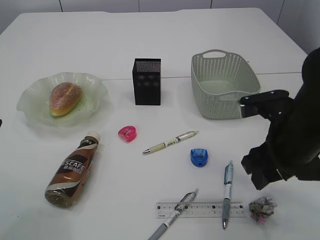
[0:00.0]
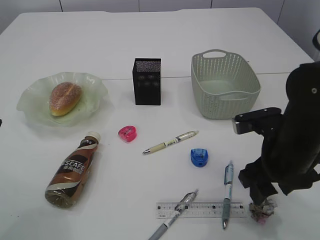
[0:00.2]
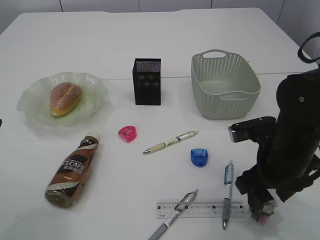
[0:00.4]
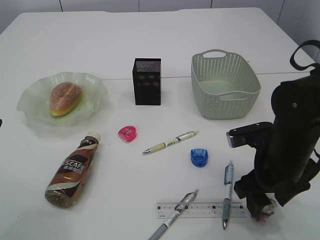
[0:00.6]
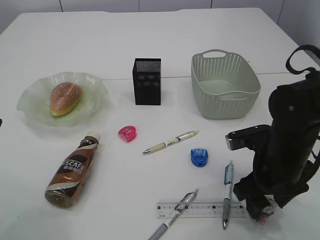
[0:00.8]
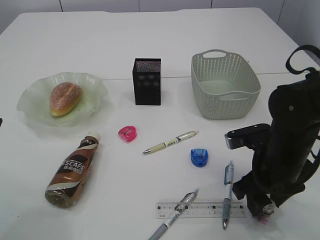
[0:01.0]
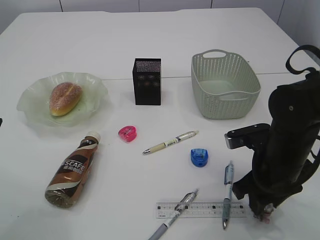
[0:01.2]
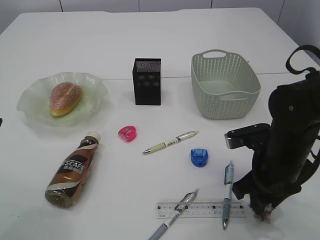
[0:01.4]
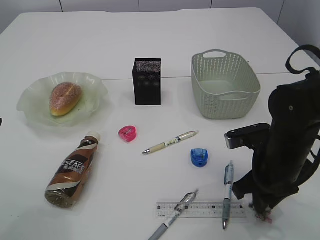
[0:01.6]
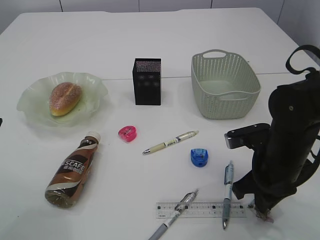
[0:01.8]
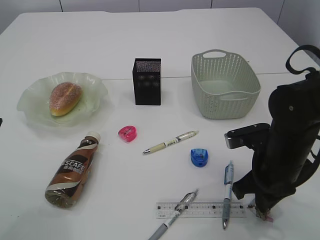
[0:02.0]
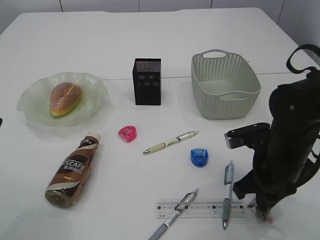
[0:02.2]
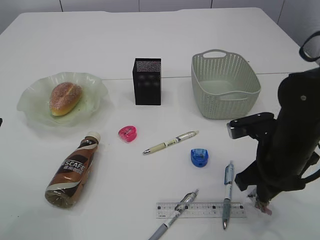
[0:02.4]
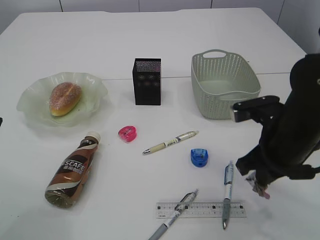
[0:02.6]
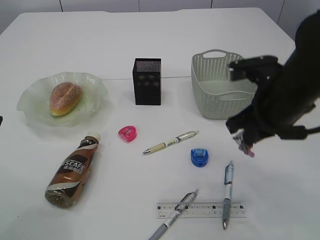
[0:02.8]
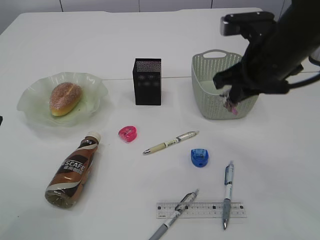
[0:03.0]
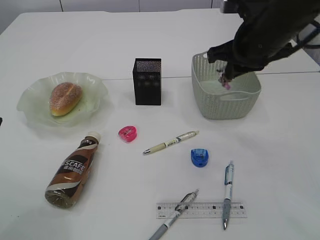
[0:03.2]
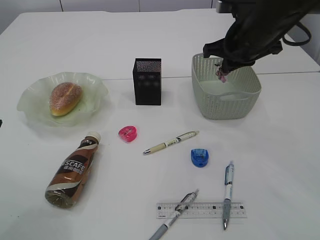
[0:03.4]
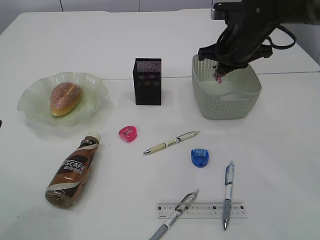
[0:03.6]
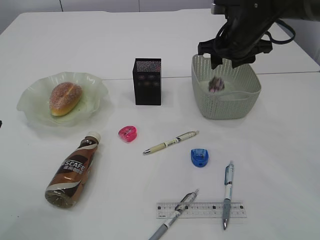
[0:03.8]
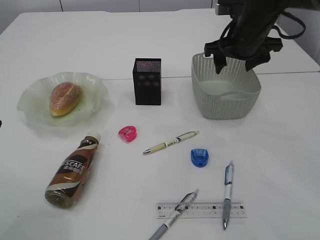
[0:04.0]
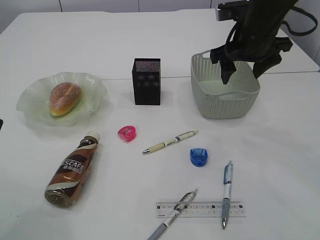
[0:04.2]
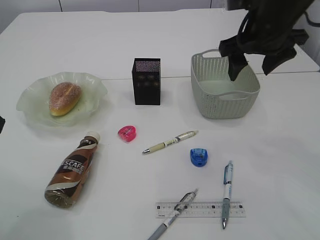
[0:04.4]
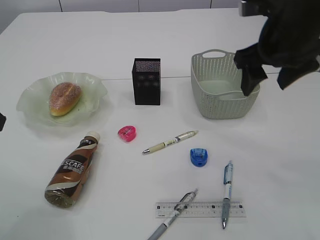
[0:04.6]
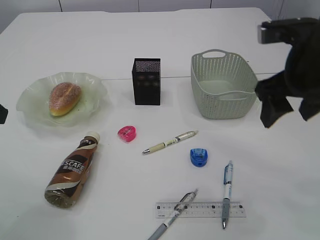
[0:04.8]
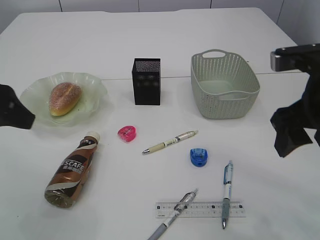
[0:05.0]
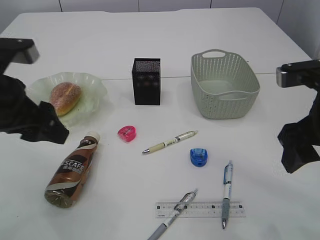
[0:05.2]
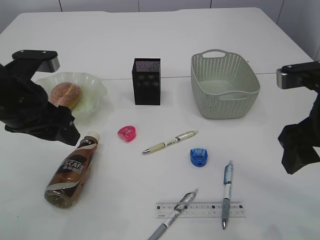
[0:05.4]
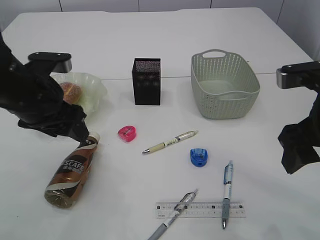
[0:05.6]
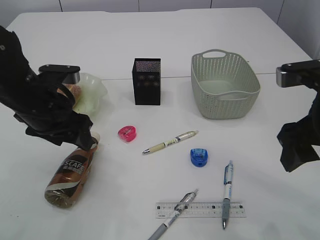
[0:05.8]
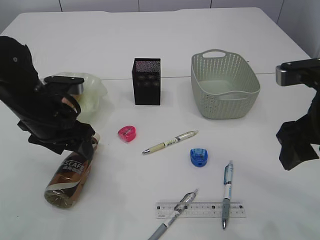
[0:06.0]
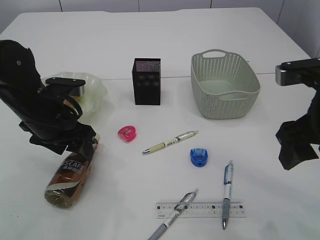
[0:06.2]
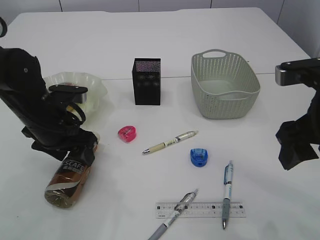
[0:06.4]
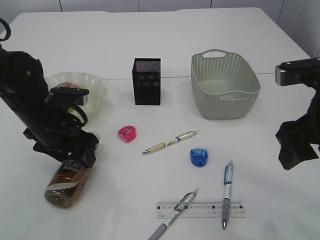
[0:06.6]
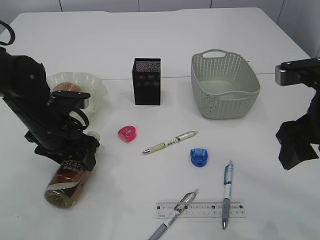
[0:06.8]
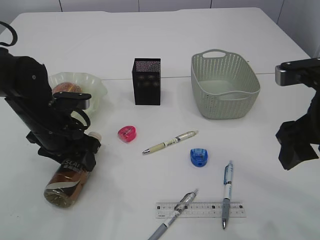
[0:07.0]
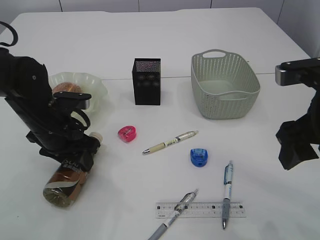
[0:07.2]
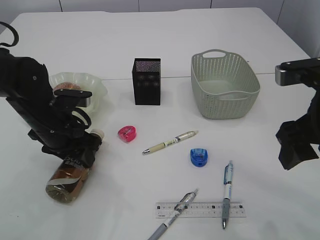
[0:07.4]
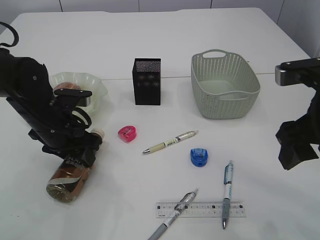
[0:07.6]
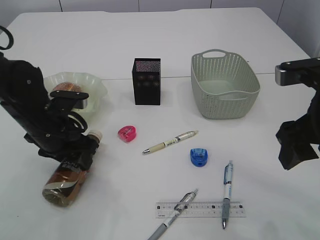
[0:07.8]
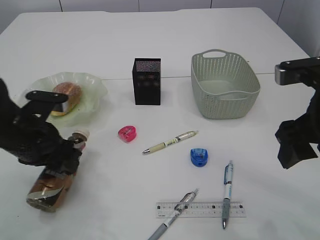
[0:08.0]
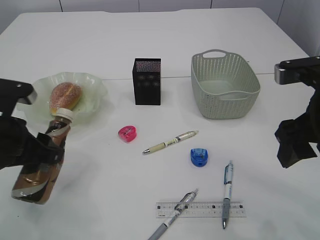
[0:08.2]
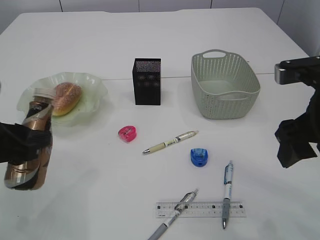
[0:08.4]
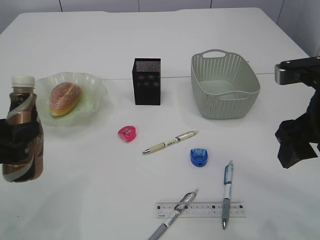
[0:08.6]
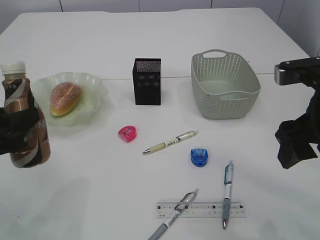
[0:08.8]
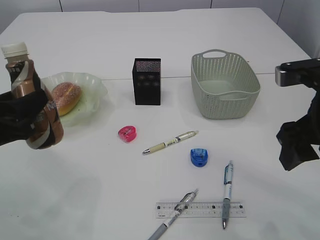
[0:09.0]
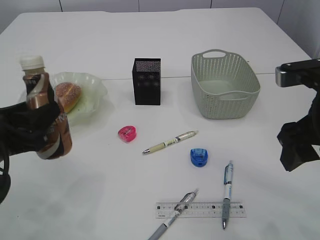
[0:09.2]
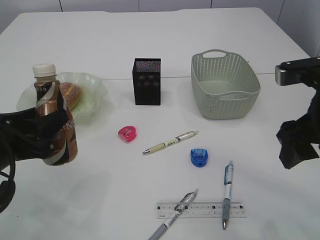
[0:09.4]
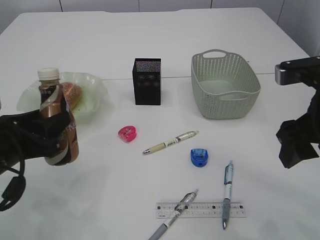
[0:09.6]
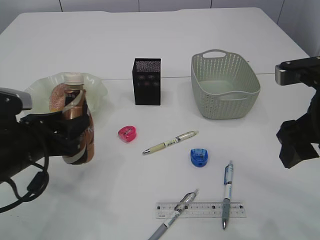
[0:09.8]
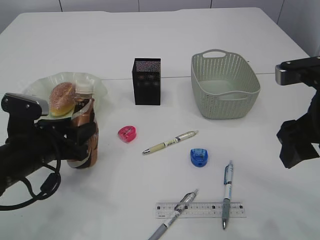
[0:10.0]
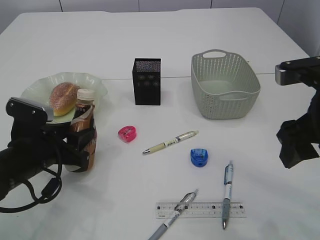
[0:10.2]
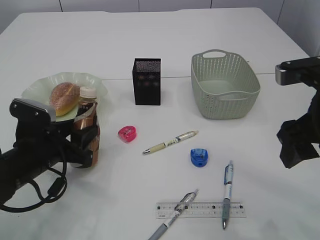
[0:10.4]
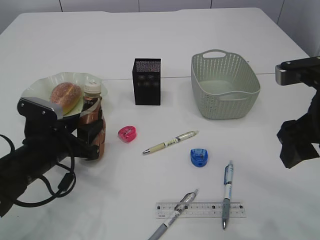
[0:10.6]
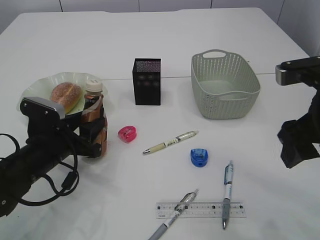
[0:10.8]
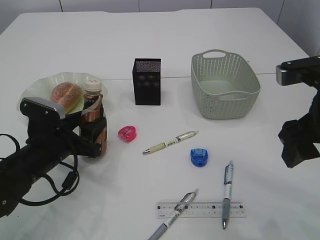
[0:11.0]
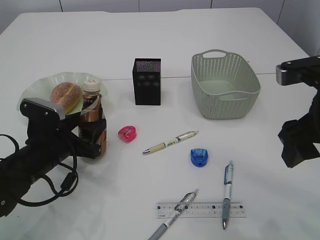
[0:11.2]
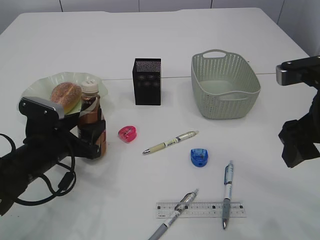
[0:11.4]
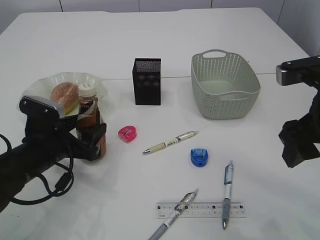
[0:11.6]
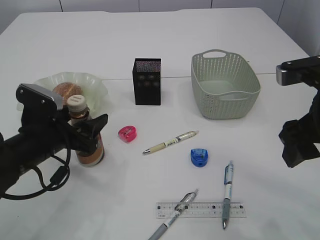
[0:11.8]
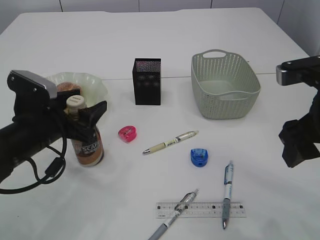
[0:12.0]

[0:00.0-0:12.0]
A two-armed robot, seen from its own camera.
Step, 0:00.0 to 0:02.6: Pick up the waste paper.
Step, 0:02.8 to 0:03.8: Place the waste paper in the basket.
Step, 0:04.0 to 0:08.0: Pick up the bottle with the left arm.
0:00.0 to 0:01.6: The right gripper is displaced downward by some 5 cm, and closes.
0:01.6 to 0:03.0: The right gripper travels upward and forward by roughly 15 cm.
0:03.0 to 0:04.4: The right gripper moves forward, some 5 cm, and opens its fingers.
0:04.4 to 0:06.0: The left gripper heads downward, to the right and forward, covering about 20 cm; the right gripper shifts some 15 cm backward.
0:06.0 to 0:07.6: The left gripper closes.
0:07.6 to 0:09.0: The left gripper travels backward, upward and to the left by some 15 cm.
0:09.0 to 0:10.4: The left gripper travels downward and forward by roughly 10 cm.
0:10.4 to 0:12.0: The left gripper opens.

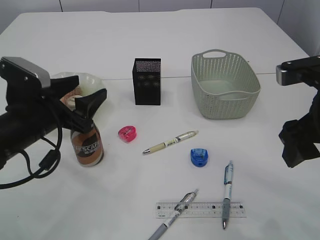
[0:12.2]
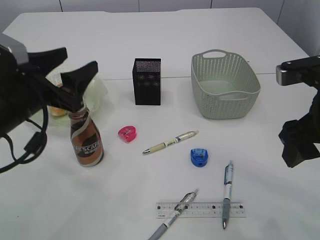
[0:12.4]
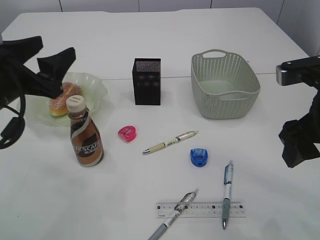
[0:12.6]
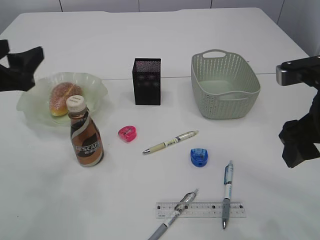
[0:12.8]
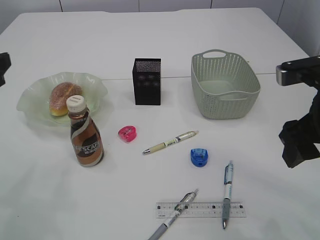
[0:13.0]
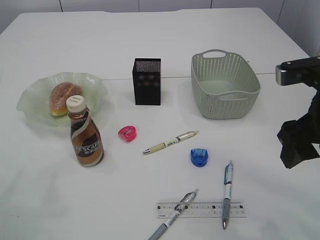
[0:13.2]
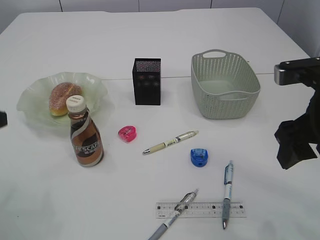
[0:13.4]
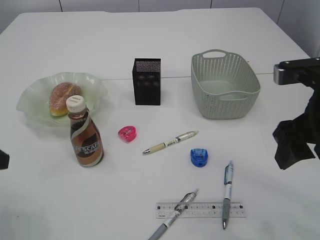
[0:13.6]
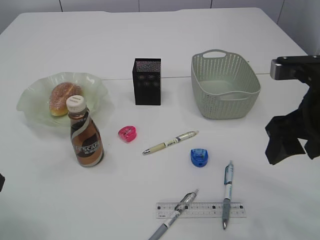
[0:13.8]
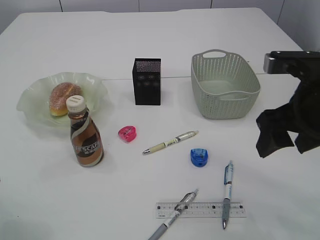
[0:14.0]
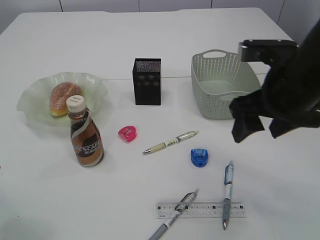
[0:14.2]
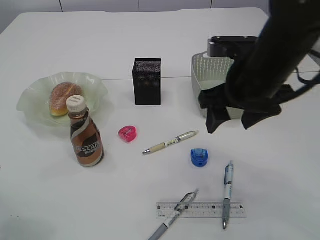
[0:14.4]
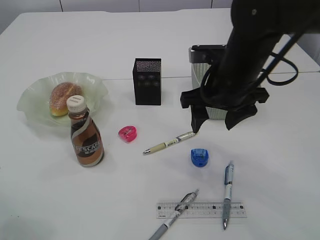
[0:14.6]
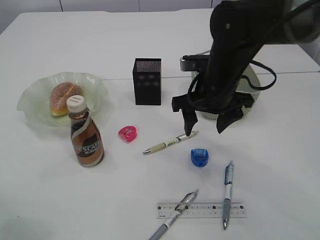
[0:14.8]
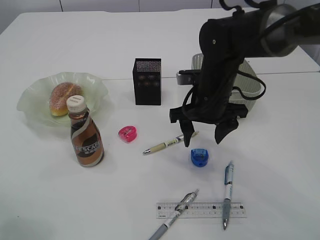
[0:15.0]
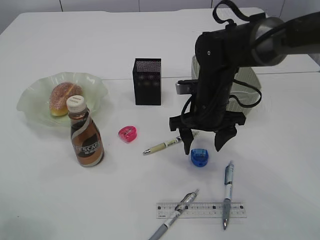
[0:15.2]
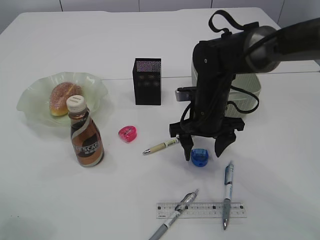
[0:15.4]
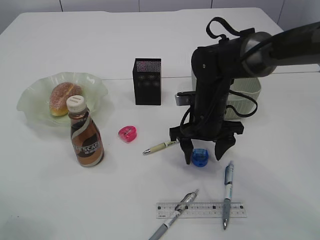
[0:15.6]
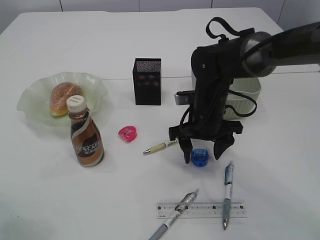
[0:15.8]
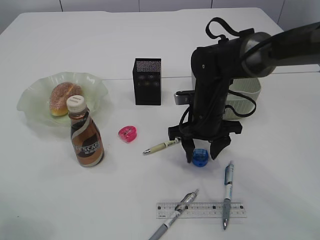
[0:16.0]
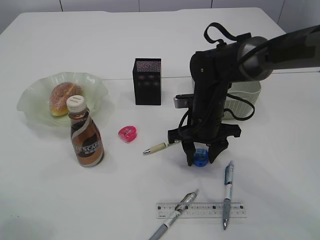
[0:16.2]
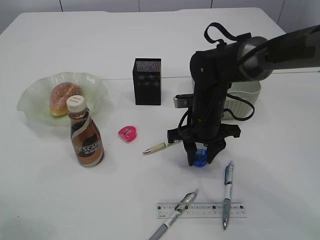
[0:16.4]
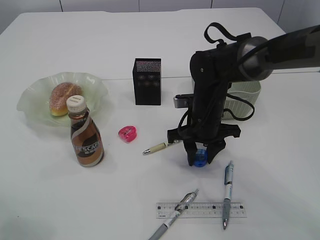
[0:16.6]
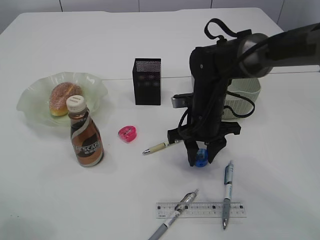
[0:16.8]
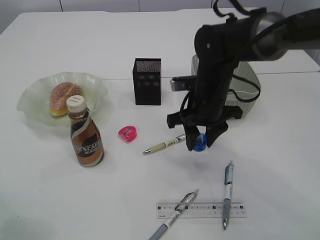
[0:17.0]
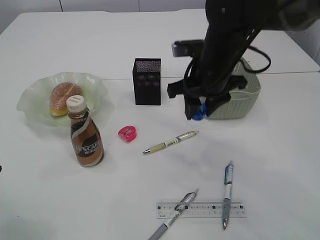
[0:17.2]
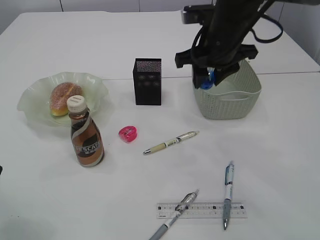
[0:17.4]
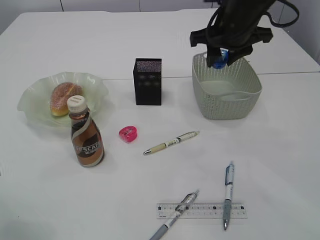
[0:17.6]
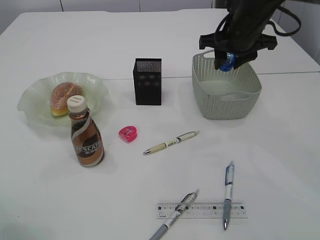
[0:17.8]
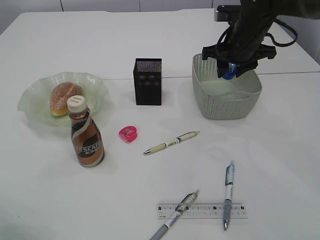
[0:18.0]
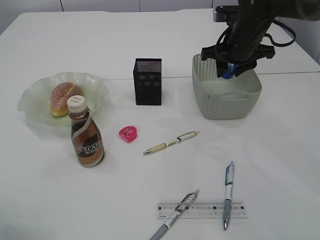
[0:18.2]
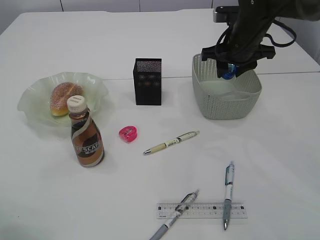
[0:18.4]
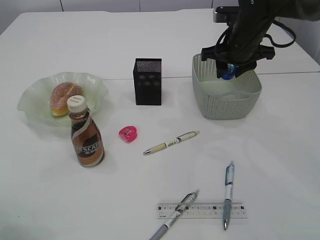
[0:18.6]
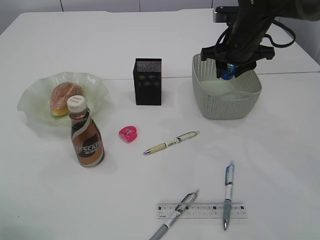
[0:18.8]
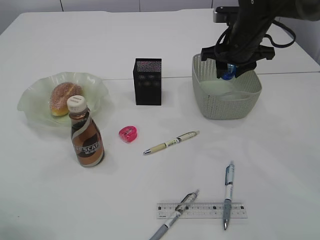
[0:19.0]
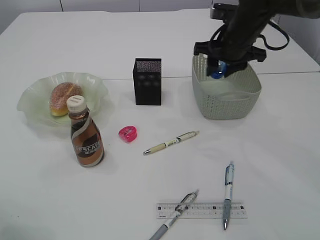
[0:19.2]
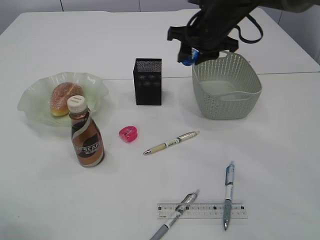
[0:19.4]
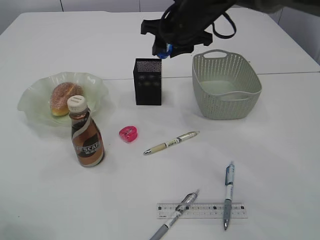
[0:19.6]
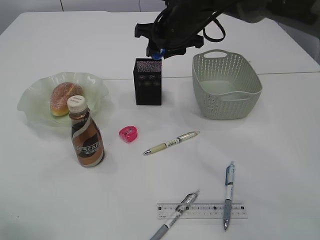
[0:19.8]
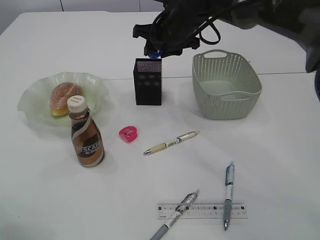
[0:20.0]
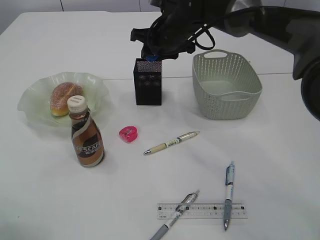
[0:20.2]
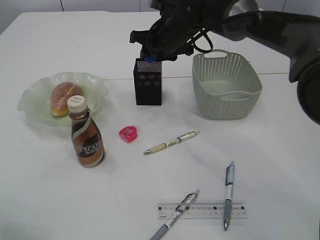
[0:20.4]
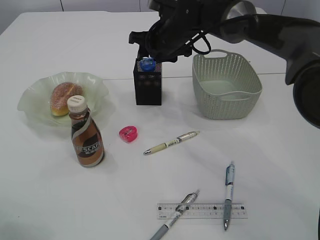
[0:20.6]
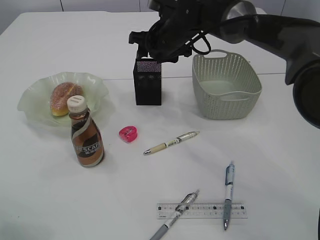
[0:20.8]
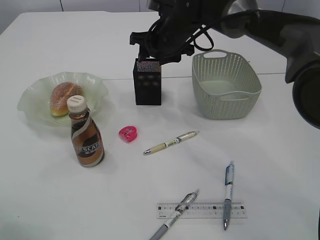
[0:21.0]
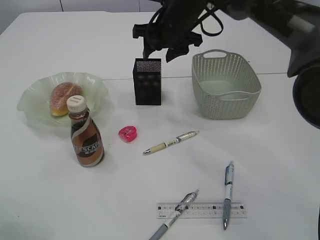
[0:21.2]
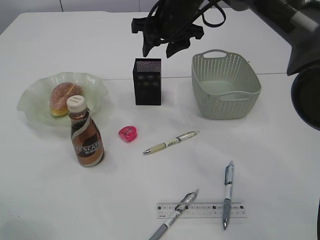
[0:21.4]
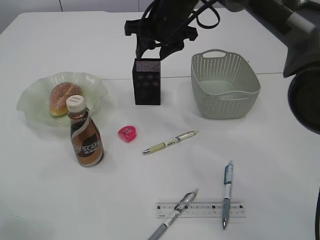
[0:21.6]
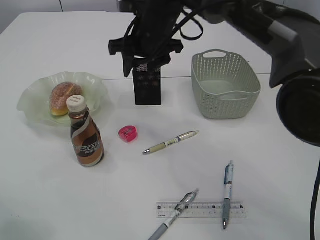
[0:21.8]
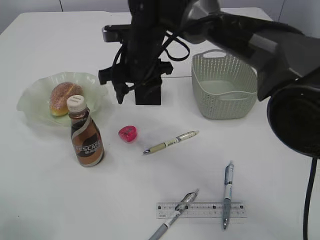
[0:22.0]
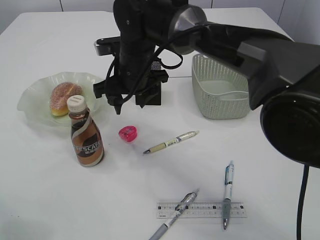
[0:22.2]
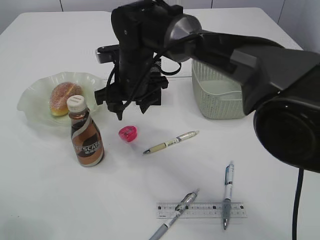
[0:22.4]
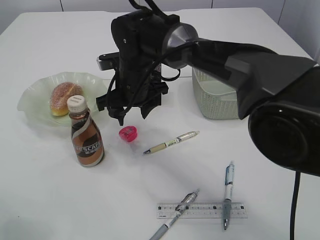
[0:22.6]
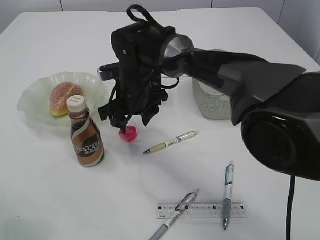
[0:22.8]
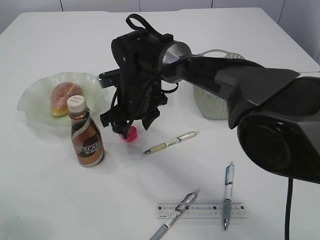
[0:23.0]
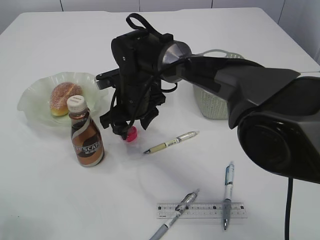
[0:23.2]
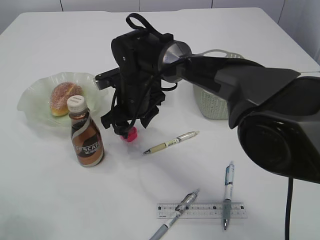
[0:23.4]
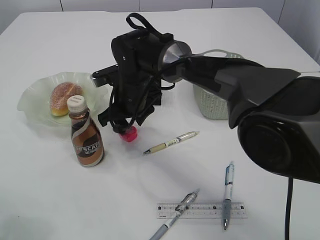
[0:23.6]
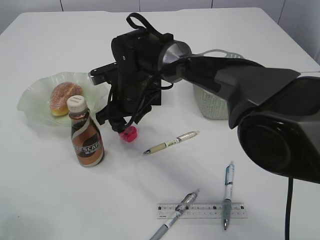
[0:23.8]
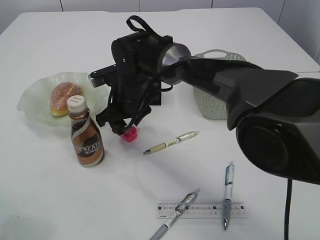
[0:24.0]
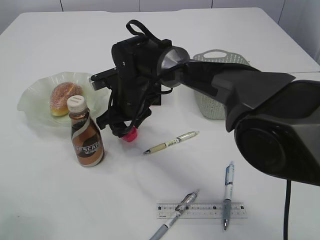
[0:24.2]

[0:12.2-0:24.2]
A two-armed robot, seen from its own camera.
Step, 0:12.6 to 0:17.0: Pick up the blue pencil sharpener.
Step, 0:17.2 to 0:21.4: Place the blue pencil sharpener into the pen holder.
0:12.2 to 0:13.8: The left gripper is displaced to the left, backward and upward by roughly 15 cm.
0:13.8 to 0:15.2: The right gripper goes about 20 cm forward, to the left and downward.
0:15.2 to 0:16.6: The right gripper closes up.
0:16.6 to 0:18.2: The right gripper moves upward, to the right and forward, approximately 15 cm.
0:18.2 to 0:19.8: The right gripper goes roughly 10 cm to the left.
0:19.8 to 0:21.2: The grippers stay close to where they were, moving slightly.
0:21.2 to 0:22.6: The right gripper goes approximately 15 cm to the left, downward and backward.
0:22.6 to 0:24.2: The grippers move only a little.
